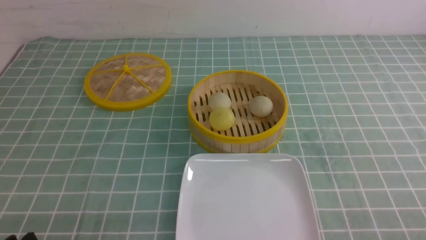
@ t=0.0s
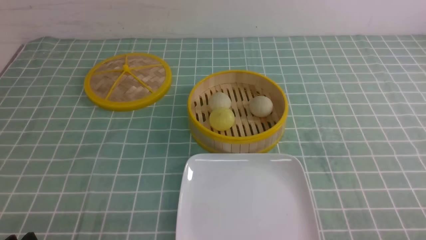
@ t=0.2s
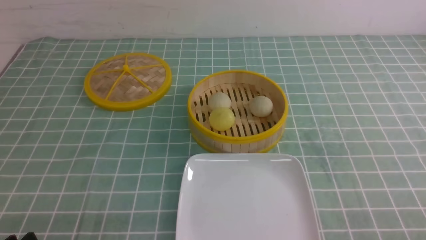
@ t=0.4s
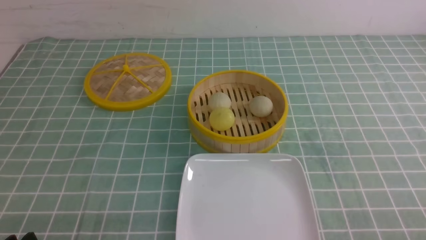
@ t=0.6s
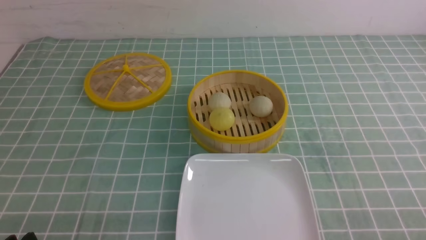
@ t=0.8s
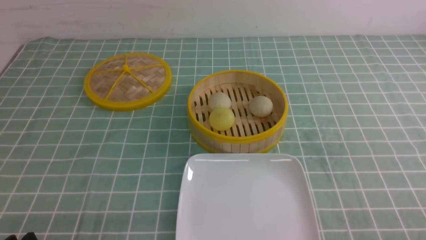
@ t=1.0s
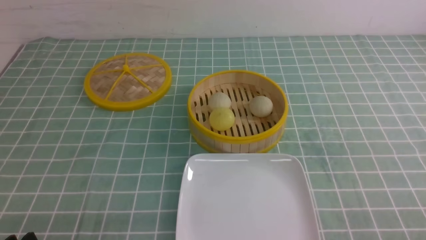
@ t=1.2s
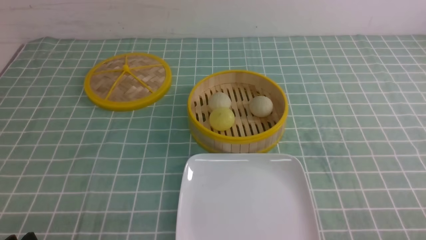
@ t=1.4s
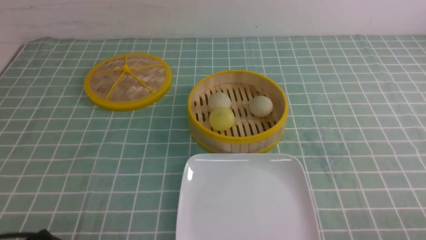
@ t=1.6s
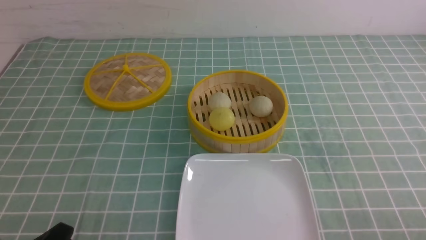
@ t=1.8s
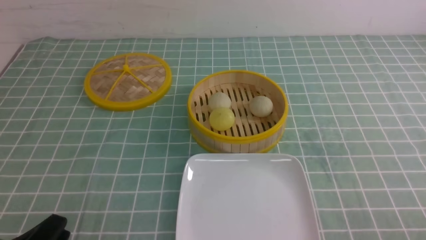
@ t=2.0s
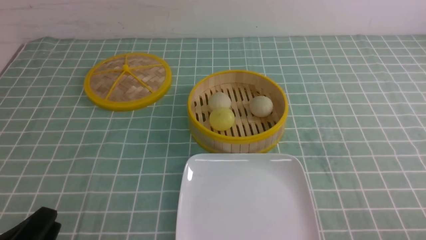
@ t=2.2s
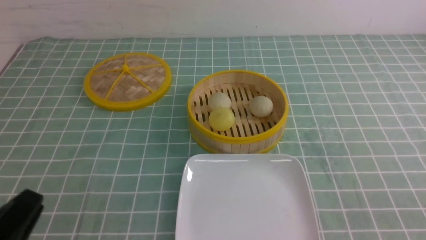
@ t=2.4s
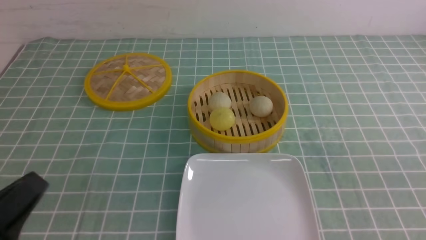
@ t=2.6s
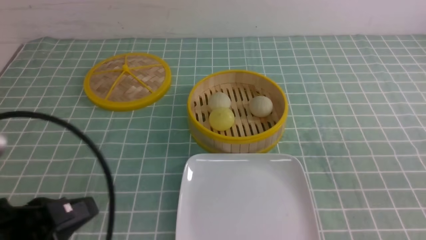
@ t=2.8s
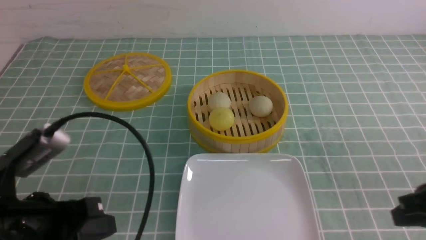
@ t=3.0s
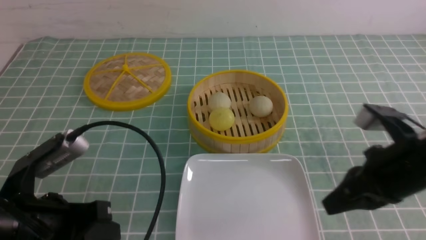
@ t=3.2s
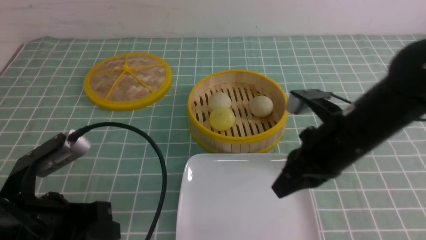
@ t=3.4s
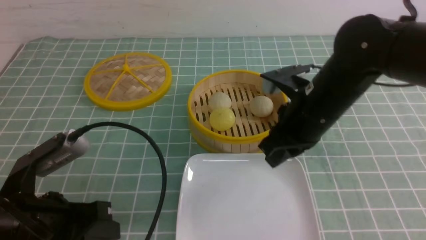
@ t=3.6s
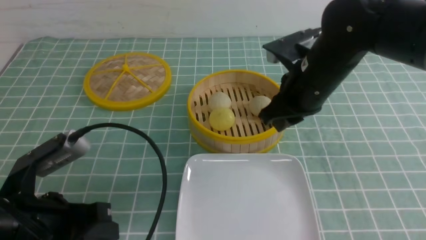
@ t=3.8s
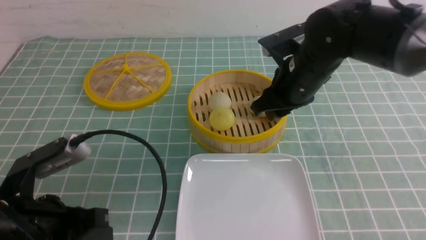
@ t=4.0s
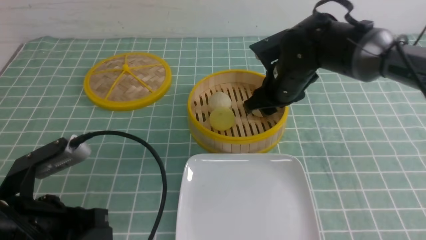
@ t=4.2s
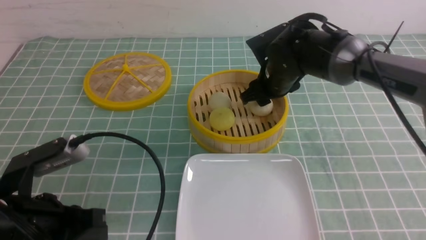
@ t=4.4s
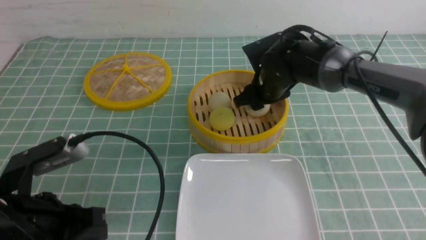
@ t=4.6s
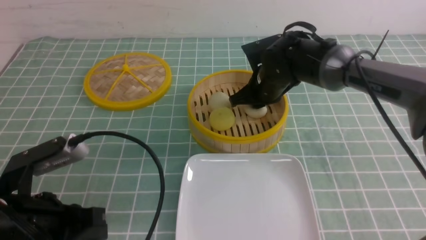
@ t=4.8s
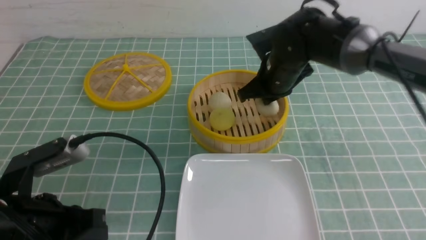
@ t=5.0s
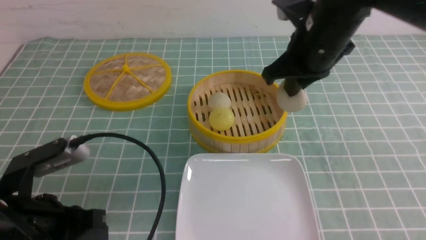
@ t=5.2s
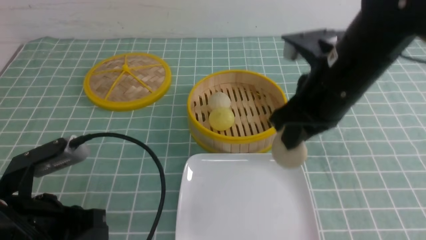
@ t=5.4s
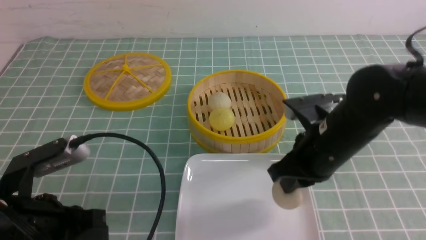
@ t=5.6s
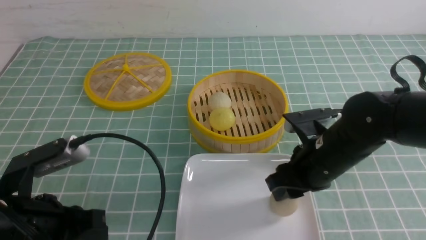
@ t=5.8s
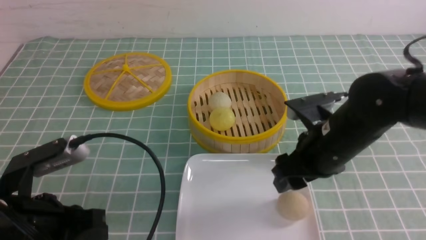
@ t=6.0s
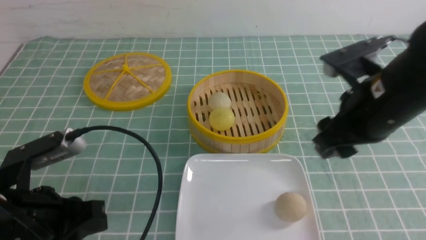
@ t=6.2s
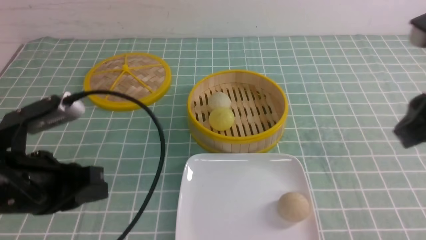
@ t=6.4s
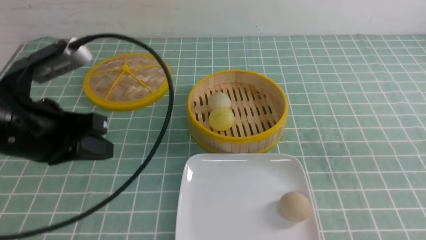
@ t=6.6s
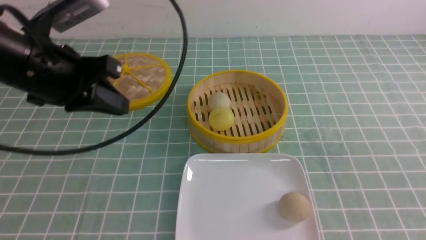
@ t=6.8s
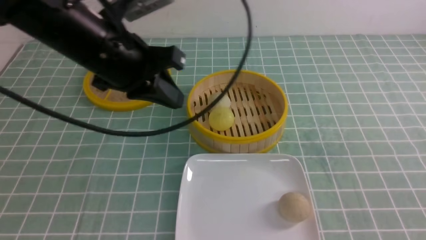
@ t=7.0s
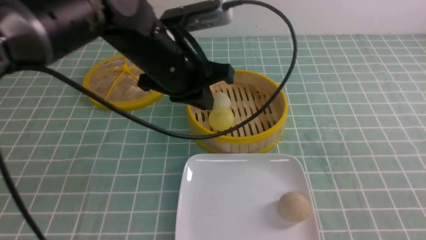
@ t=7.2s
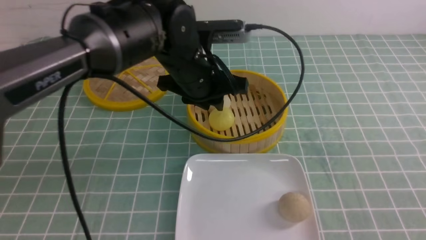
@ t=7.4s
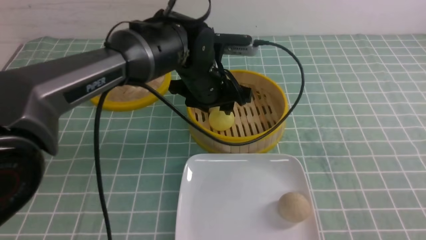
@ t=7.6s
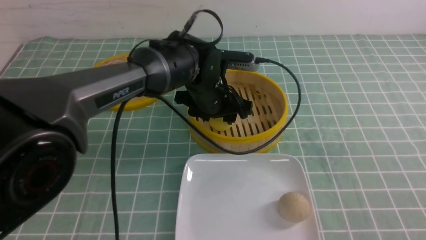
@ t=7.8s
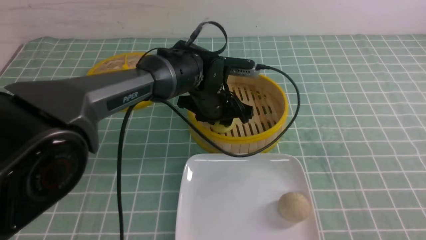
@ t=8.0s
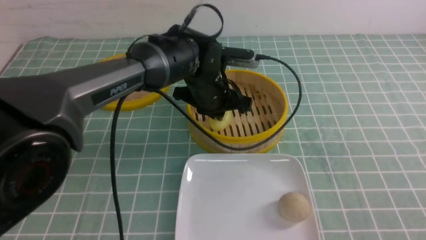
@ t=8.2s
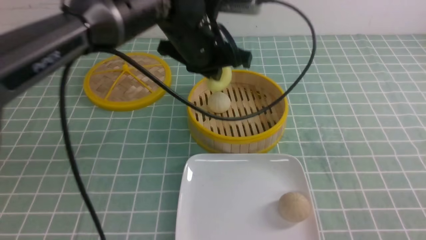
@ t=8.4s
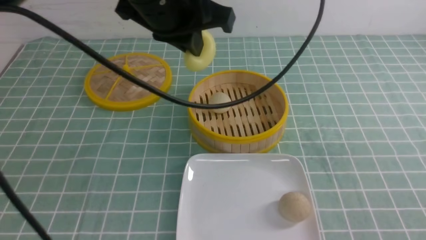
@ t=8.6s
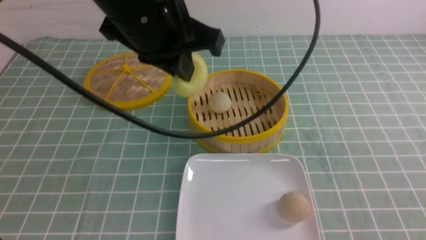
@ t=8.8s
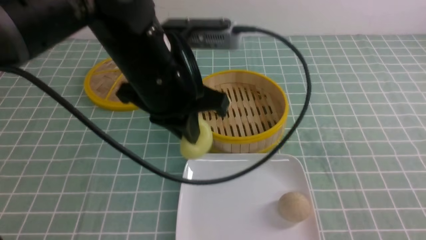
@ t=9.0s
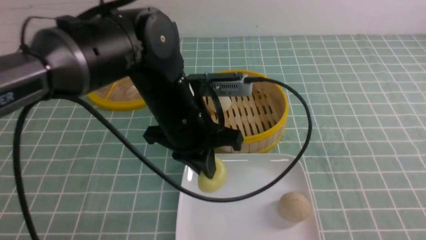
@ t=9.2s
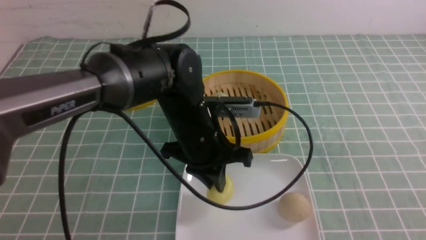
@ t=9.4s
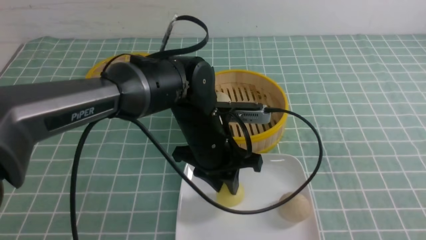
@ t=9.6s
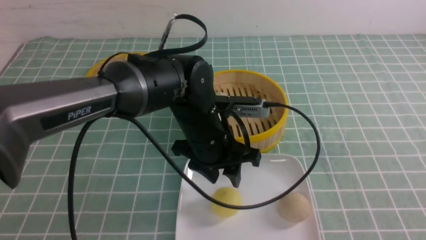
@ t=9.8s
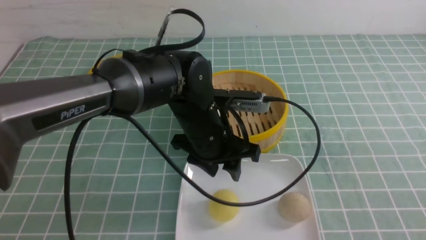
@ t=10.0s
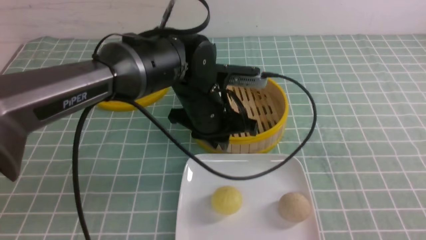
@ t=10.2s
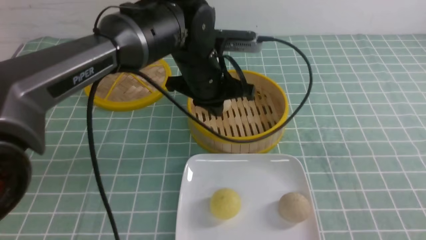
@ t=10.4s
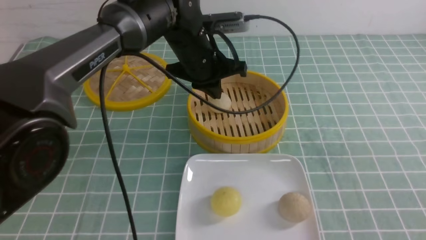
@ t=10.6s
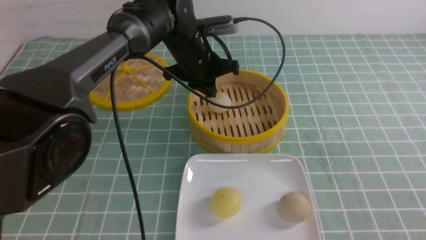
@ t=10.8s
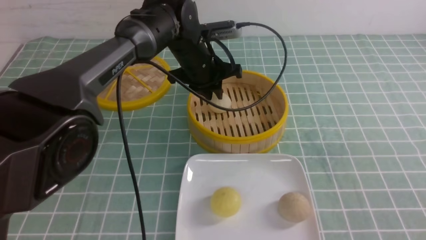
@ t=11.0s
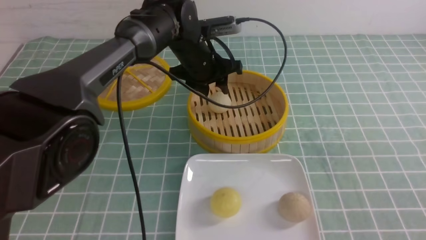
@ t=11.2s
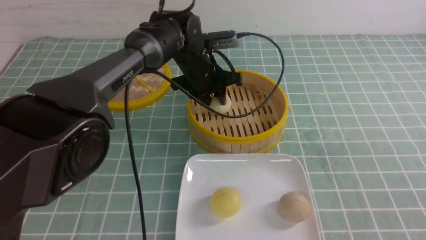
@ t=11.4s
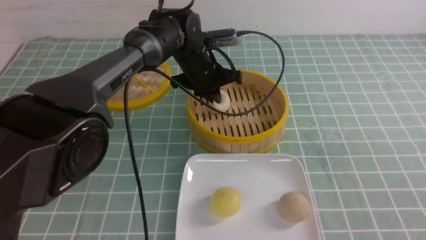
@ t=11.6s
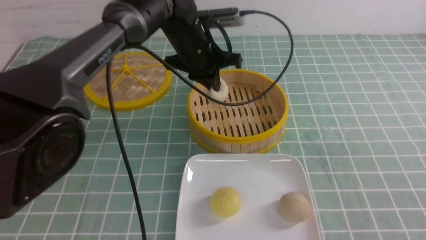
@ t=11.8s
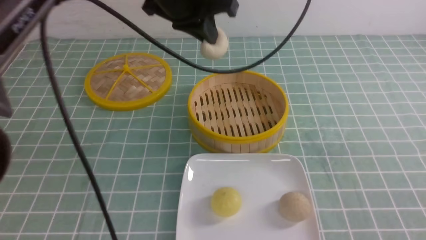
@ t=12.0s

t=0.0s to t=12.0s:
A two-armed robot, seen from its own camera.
Step, t=0.0s to t=4.6s: use the right arm to grab the steamed stuffed bun that is closest to it.
Step, t=5.0s to t=5.8s: use the right arm to put the steamed stuffed bun into the plate.
Step, t=6.2s to t=8.0s: use the left arm to grab the steamed stuffed bun that is closest to it.
Step, t=8.2s to t=9.6s: use the left arm to put the steamed stuffed bun into the plate.
Step, t=9.8s to t=11.6s: use the left arm to grab the steamed stuffed bun that is closest to it.
t=1.6s to t=3.0s: The right gripper shifts about 15 cm forward, upward and to the left, and closes; the left gripper heads upward and forward, covering approximately 10 cm, and closes its fingers.
t=3.0s to t=4.4s: The right gripper shifts some 30 cm forward and to the left, and opens its fingers.
t=4.4s to t=6.0s: The right gripper goes approximately 15 cm backward, and closes, then reopens.
t=6.0s to t=7.6s: The left gripper is displaced forward and to the right by approximately 30 cm, and opens. Meanwhile the right gripper heads backward and to the right, covering some 25 cm, and closes its fingers.
t=7.6s to t=9.0s: The left gripper shifts approximately 15 cm backward and upward, and closes.
t=9.0s to t=10.4s: The left gripper goes roughly 10 cm forward and downward, and opens, then closes again.
t=10.4s to t=12.0s: The left gripper moves upward, approximately 10 cm, and opens, then closes again.

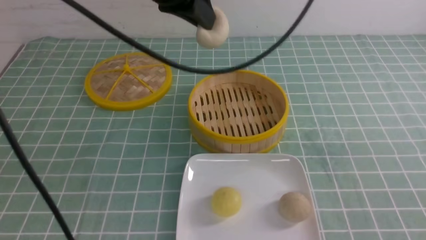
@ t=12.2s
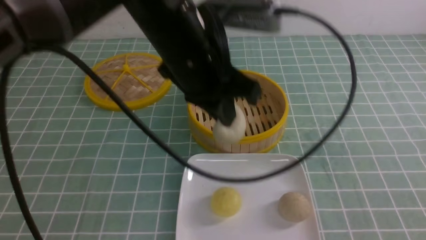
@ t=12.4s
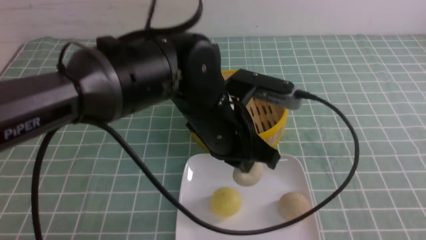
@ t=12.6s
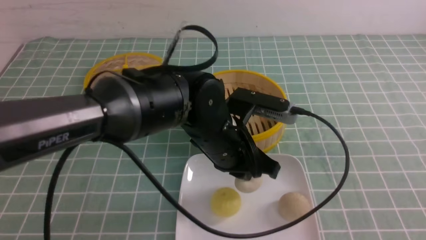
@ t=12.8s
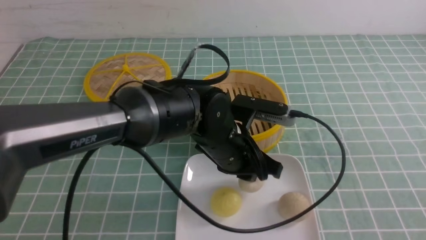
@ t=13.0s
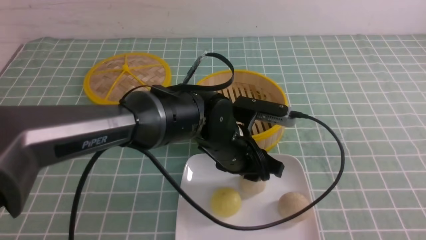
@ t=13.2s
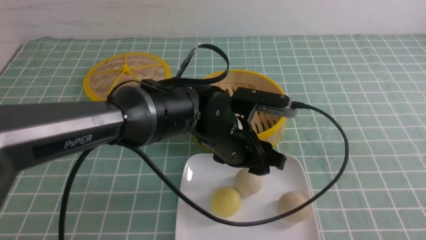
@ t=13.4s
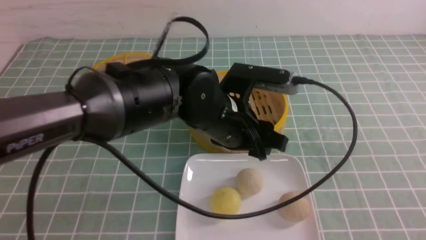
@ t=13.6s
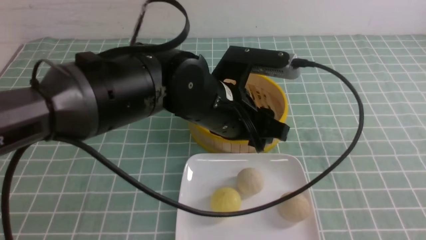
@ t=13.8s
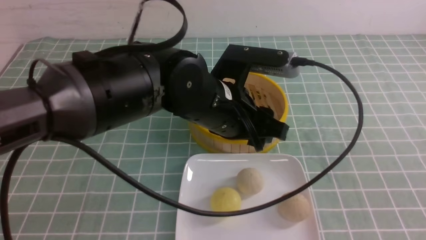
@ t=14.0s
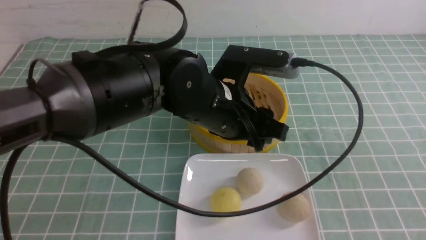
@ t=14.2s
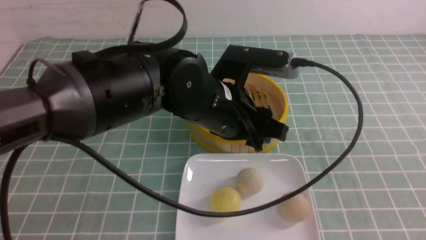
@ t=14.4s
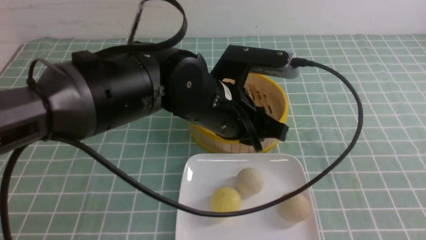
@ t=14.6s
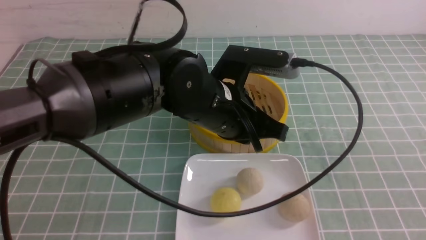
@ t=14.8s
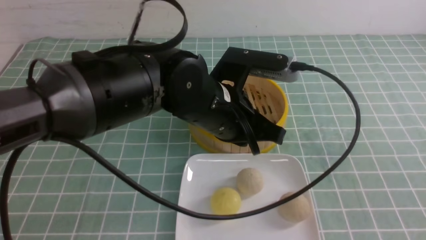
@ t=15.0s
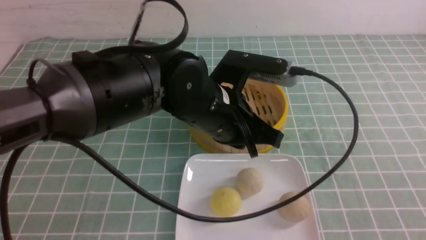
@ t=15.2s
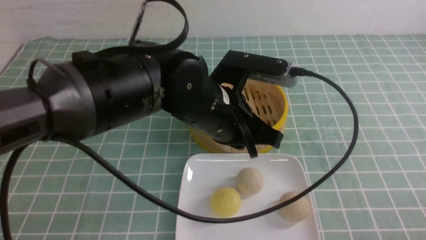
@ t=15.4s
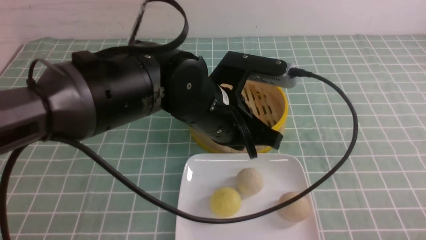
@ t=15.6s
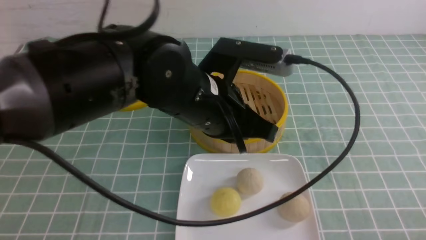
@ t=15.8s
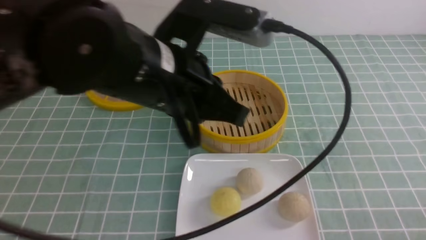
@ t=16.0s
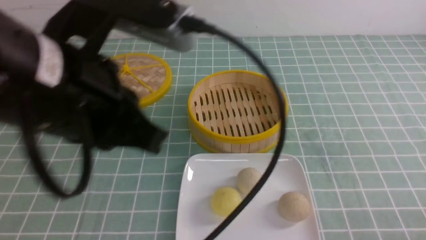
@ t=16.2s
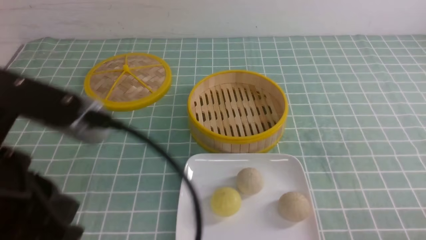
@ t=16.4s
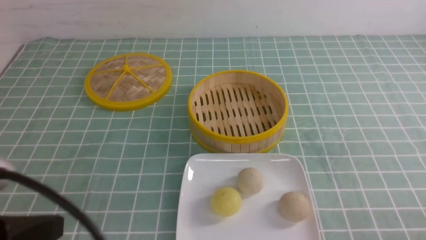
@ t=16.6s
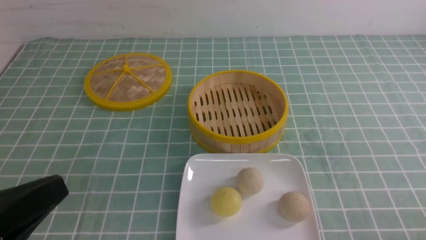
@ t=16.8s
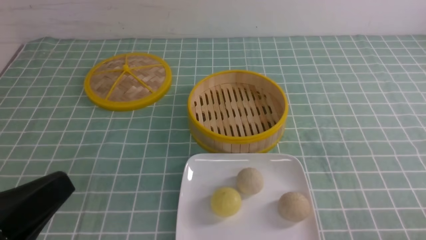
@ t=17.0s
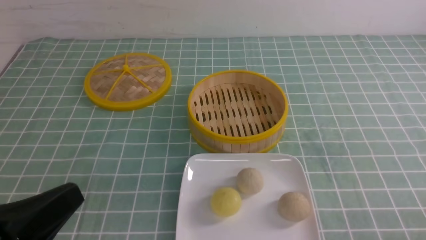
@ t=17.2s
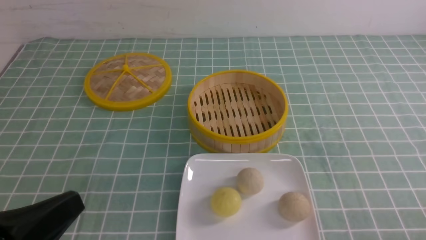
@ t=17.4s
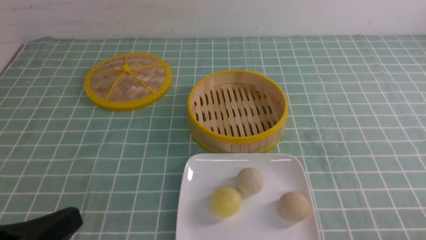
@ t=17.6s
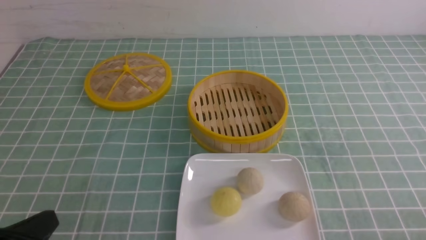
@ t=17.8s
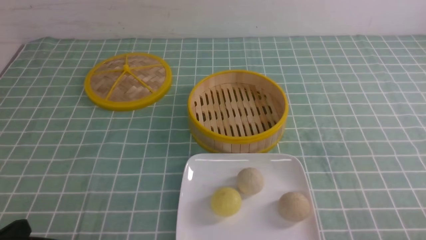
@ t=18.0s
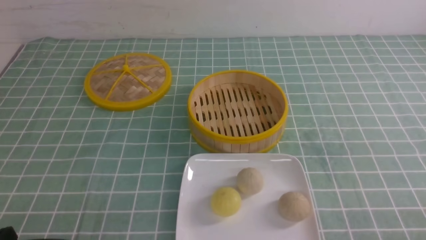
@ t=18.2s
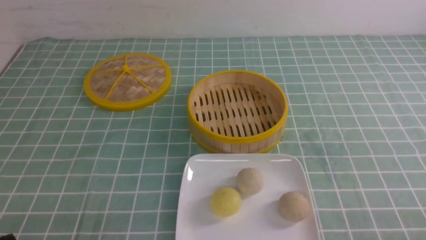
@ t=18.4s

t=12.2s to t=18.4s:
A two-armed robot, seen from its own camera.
Step, t=12.2s to t=13.4s: use the left arm to put the steamed stuffed bun into the plate.
t=12.2s to t=13.8s: The left gripper goes about 15 cm downward and backward, and opens its fingers.
t=13.8s to t=15.4s: The left gripper closes its fingers, while the right gripper travels downward by some 10 cm.
t=15.4s to t=16.8s: The left gripper travels to the left and backward by some 30 cm.
t=16.8s to t=18.4s: The left gripper goes roughly 15 cm downward.
